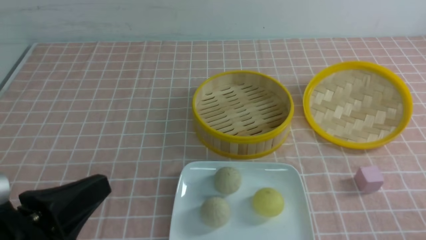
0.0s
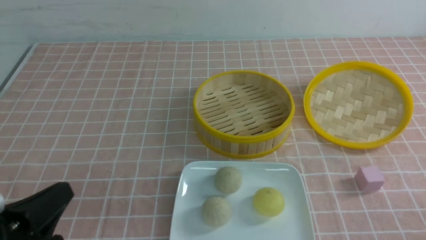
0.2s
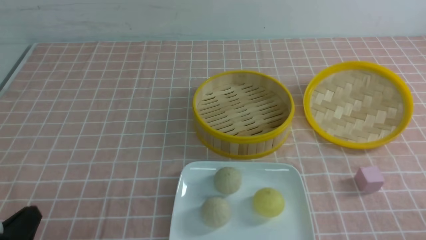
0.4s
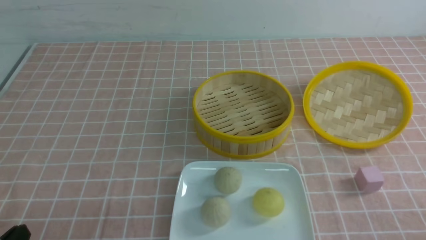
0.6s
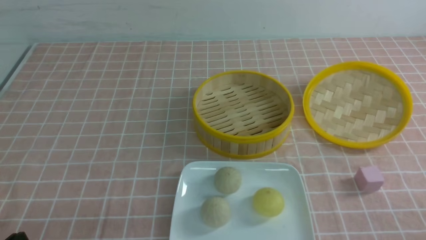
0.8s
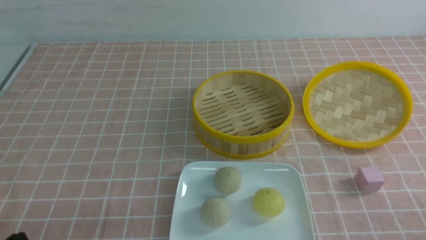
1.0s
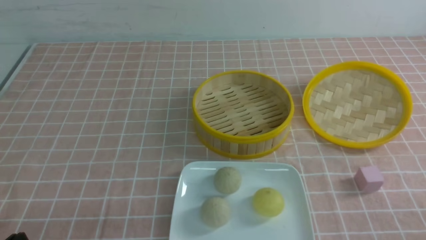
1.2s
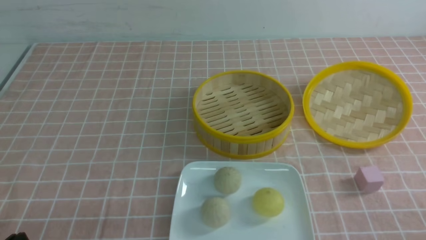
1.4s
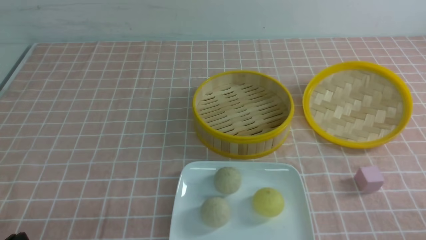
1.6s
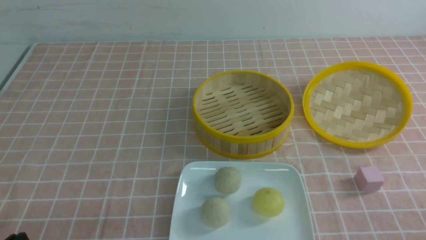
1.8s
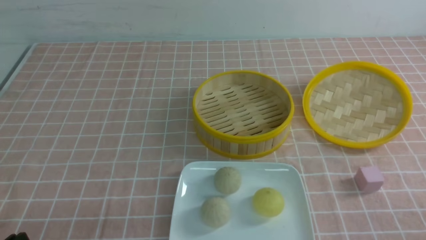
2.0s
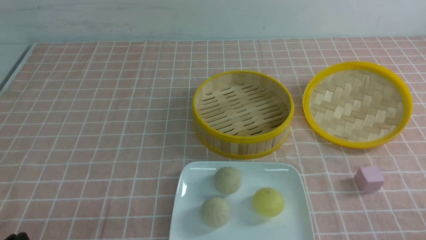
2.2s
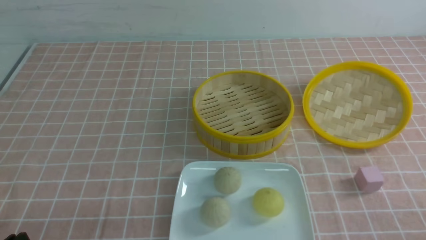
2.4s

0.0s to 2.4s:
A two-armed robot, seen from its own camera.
0.0s to 1.2s: The left gripper moves downward and to the left, about 10 cm.
1.2s to 2.4s: Both grippers stay put.
